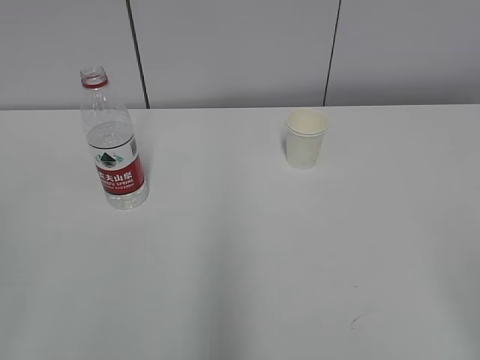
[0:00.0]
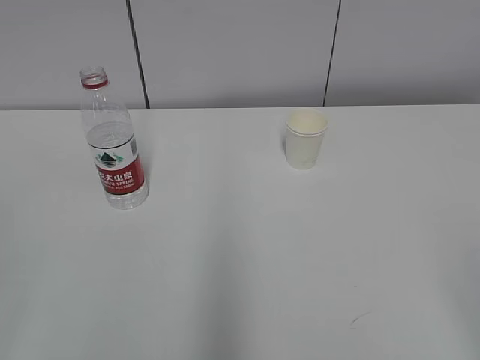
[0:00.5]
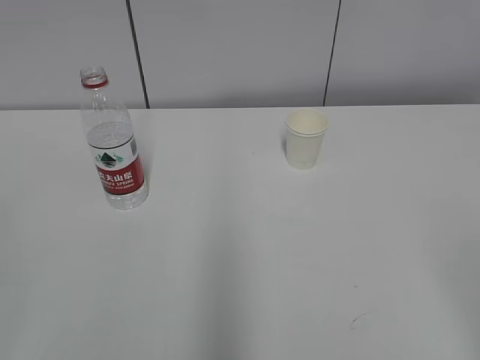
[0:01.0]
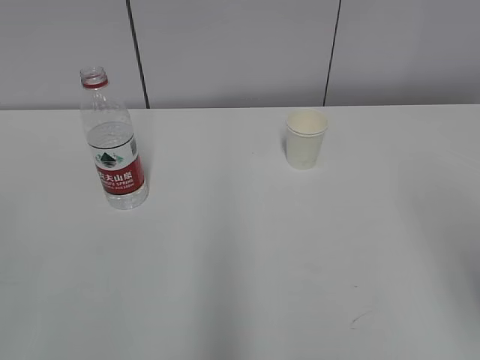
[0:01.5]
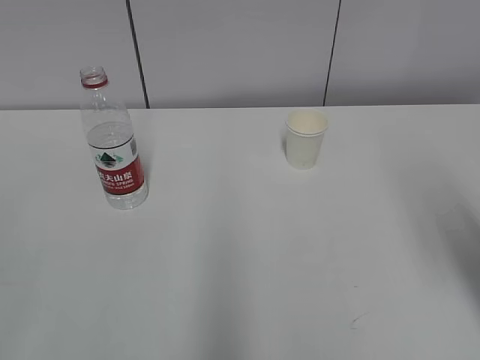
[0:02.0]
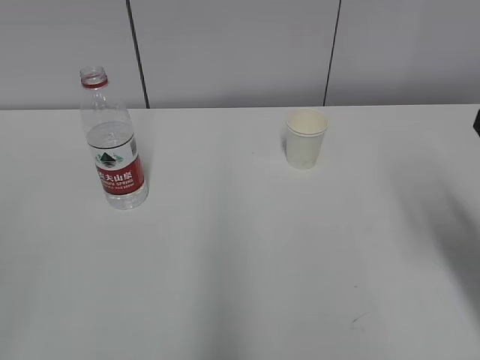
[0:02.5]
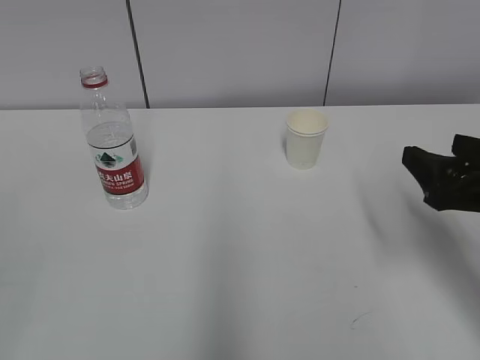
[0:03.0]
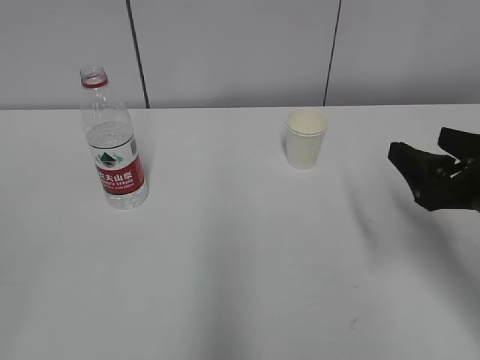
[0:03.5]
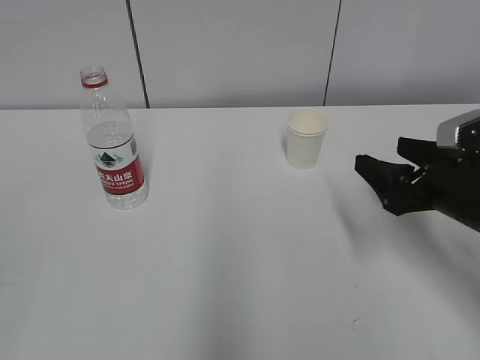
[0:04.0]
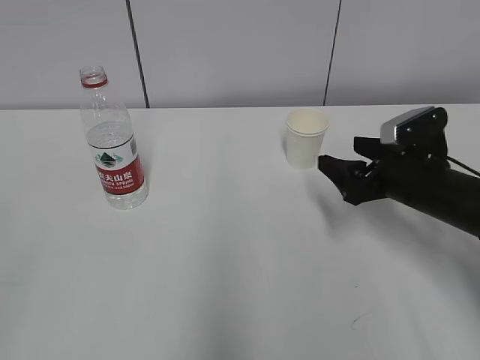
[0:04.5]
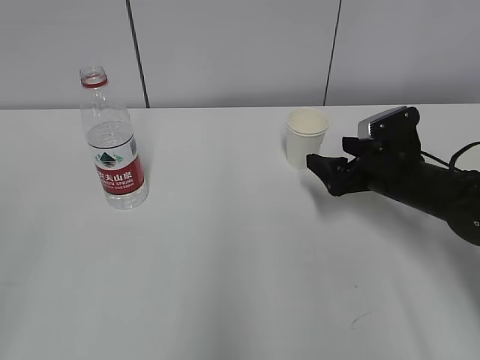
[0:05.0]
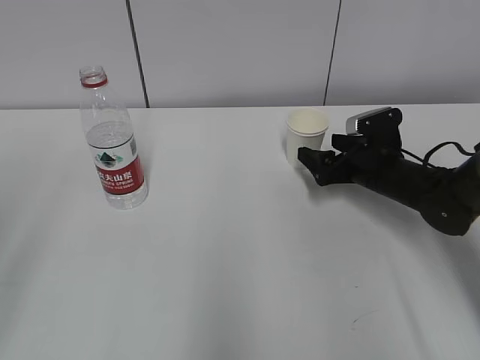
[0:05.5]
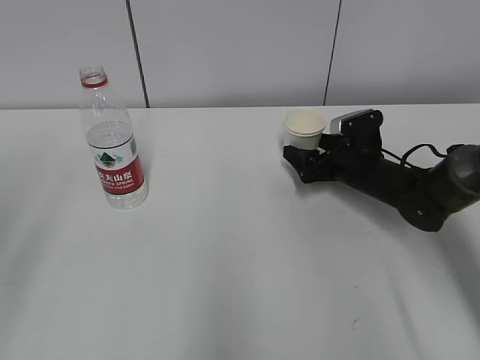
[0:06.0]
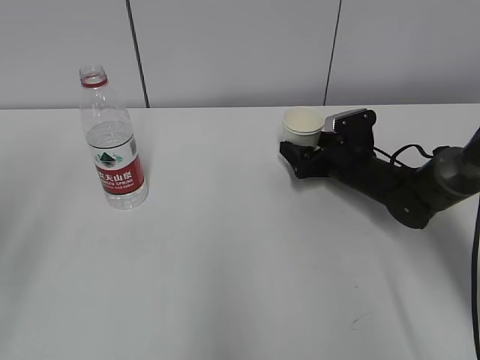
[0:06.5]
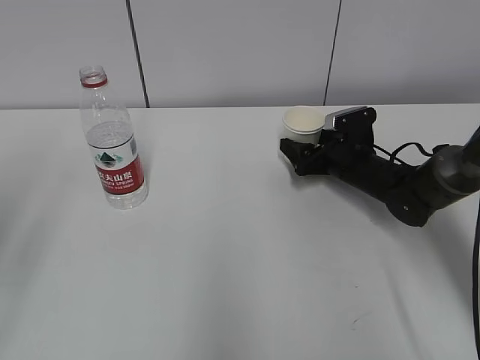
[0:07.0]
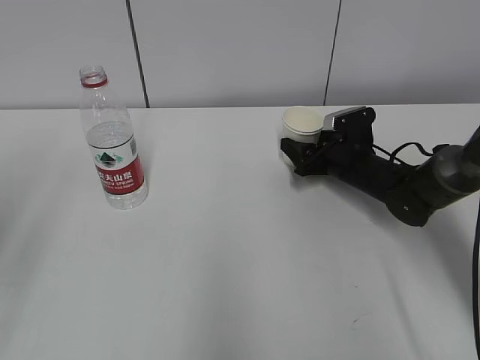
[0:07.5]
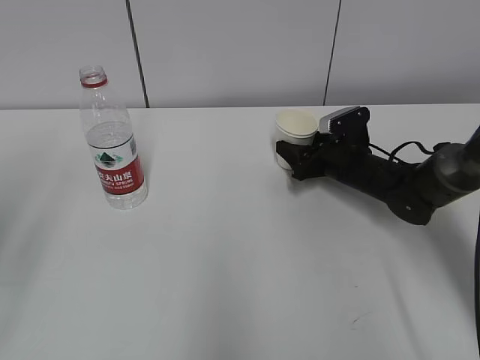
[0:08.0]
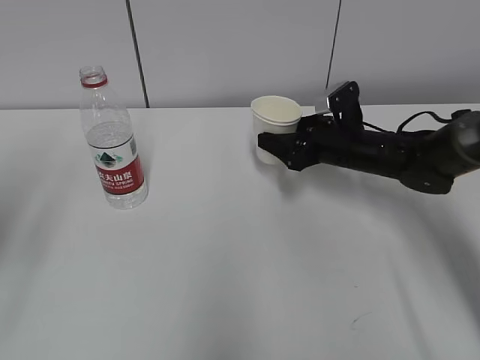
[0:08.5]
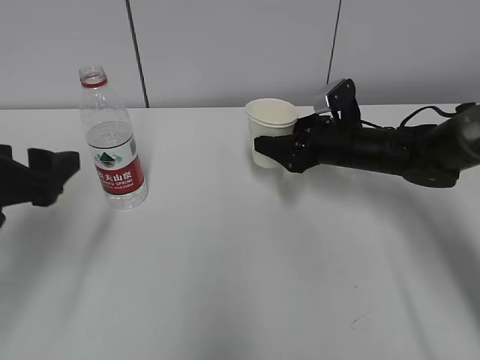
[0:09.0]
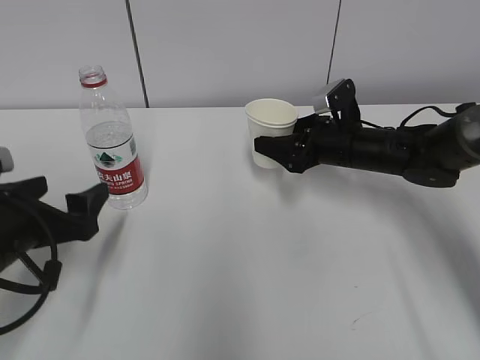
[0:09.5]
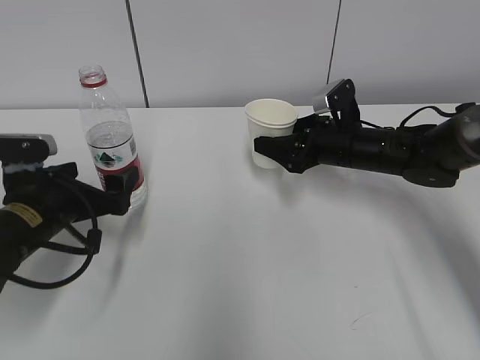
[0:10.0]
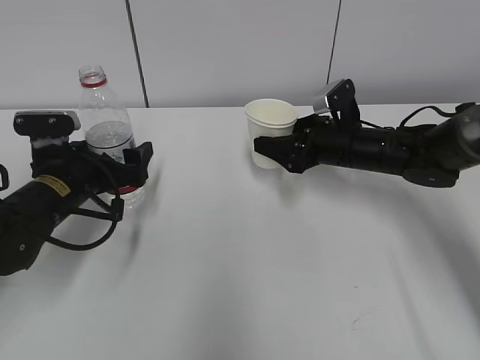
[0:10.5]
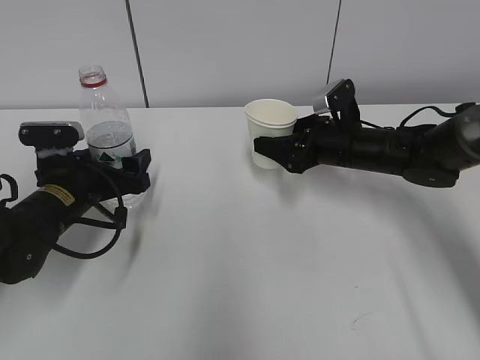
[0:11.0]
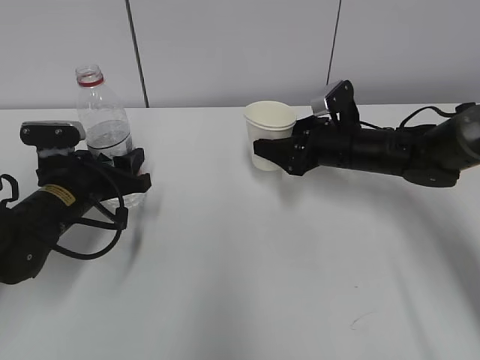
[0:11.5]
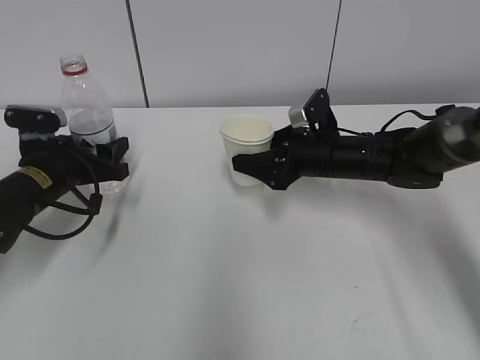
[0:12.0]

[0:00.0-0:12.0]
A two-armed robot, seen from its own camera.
Step, 0:00.0 to 0:06.0: Grab the paper cup with the right hand.
Step, 0:06.5 to 0:09.5: Grab the water bottle with the left hand.
0:02.0 to 0:04.0: The right gripper moves downward and forward, approximately 20 cm.
0:04.0 to 0:06.0: The right gripper heads forward and downward, covering approximately 20 cm. The left gripper shifts about 15 cm forward, and opens its fingers.
0:06.0 to 0:08.0: The right gripper closes up.
0:08.0 to 0:10.0: The right gripper travels upward by some 5 cm. Meanwhile the left gripper heads downward, forward and to the right, covering about 25 cm.
0:10.0 to 0:12.0: The left gripper shifts some 5 cm forward, and closes its fingers.

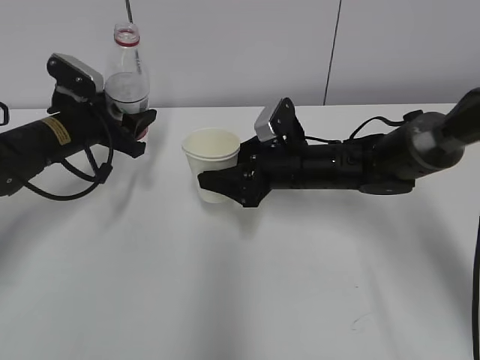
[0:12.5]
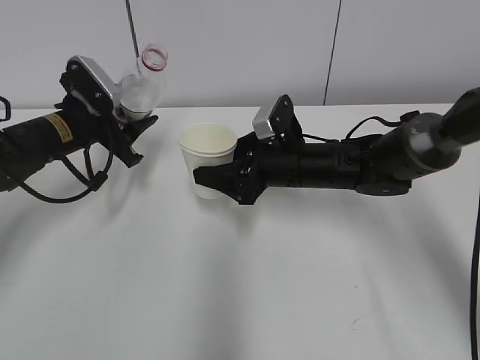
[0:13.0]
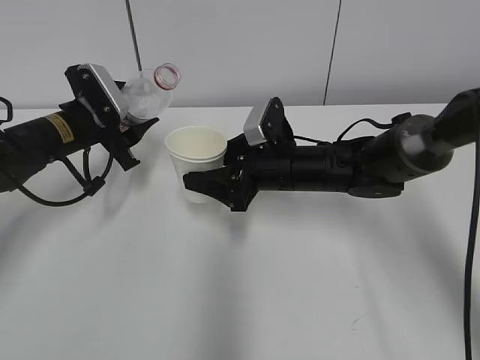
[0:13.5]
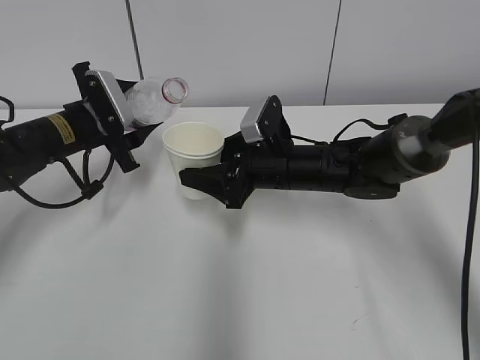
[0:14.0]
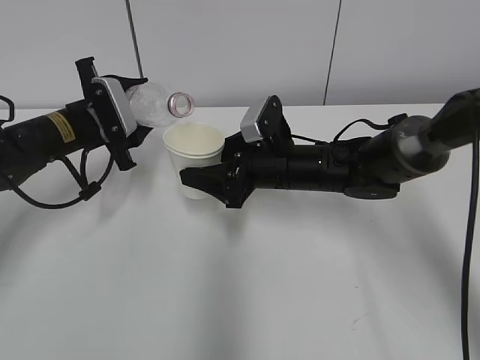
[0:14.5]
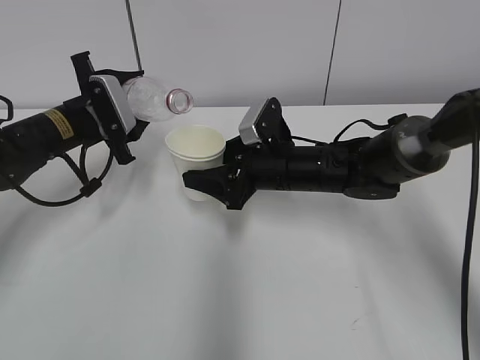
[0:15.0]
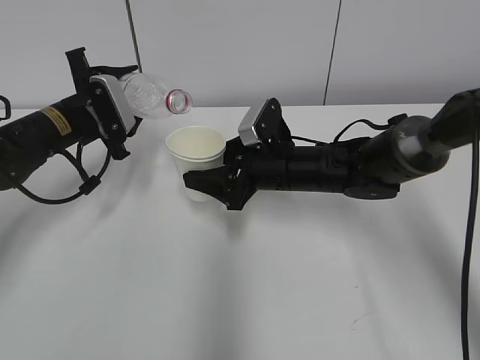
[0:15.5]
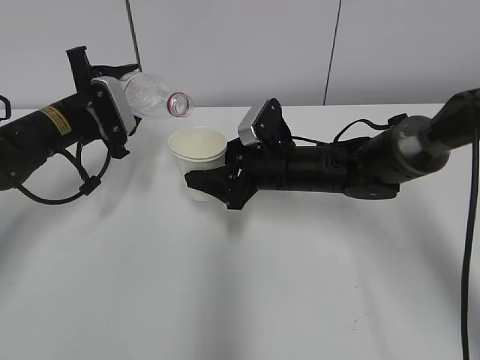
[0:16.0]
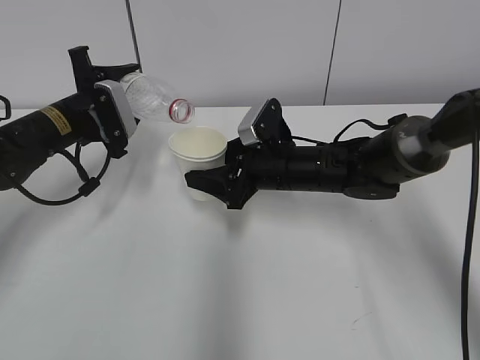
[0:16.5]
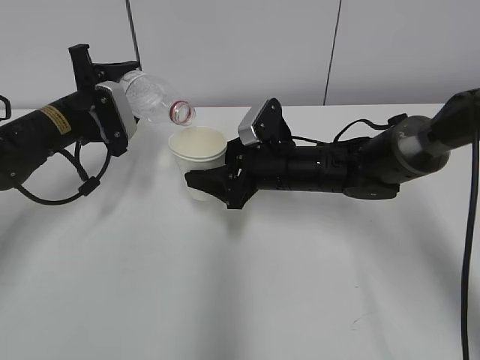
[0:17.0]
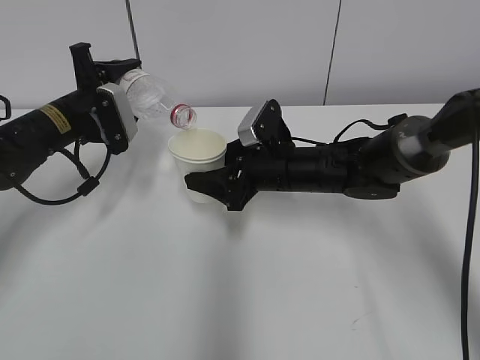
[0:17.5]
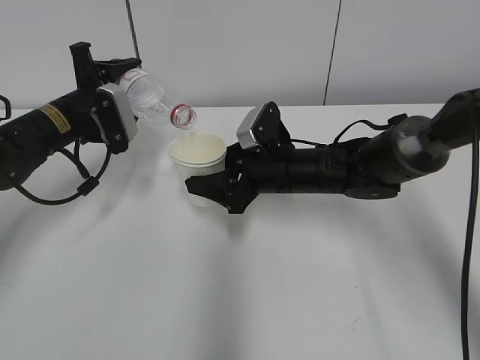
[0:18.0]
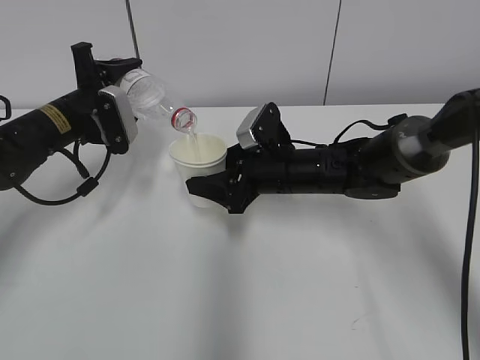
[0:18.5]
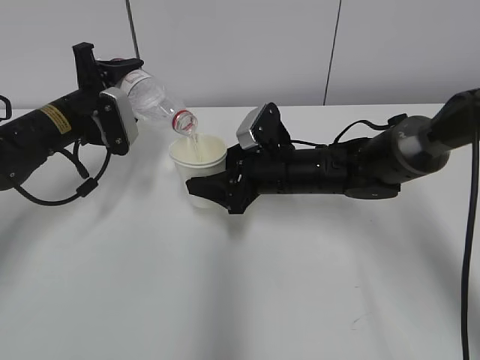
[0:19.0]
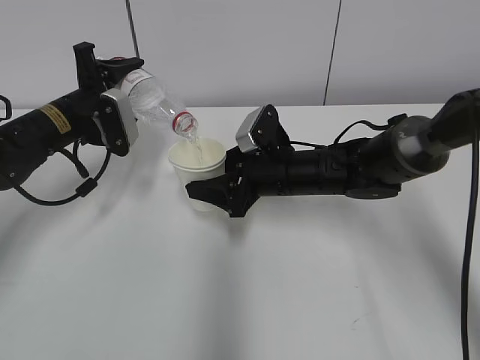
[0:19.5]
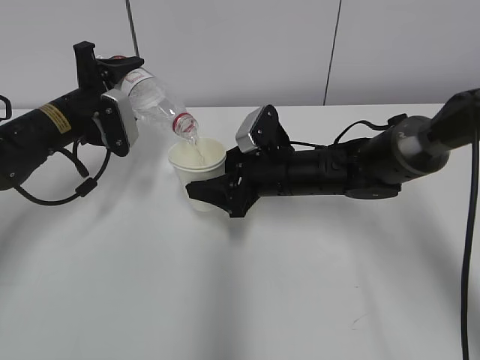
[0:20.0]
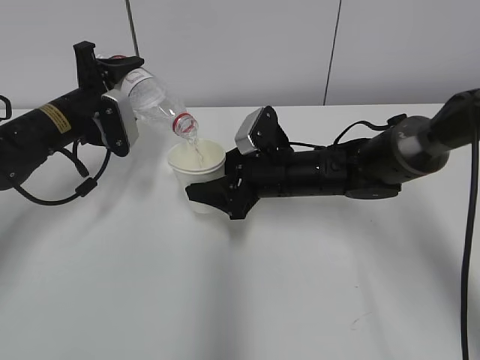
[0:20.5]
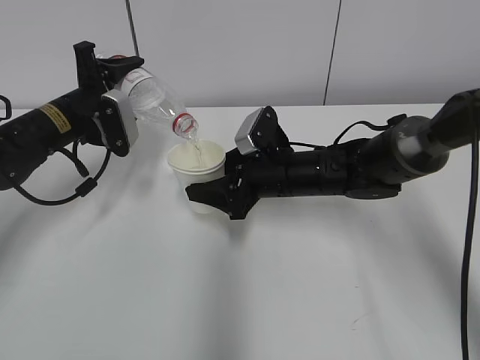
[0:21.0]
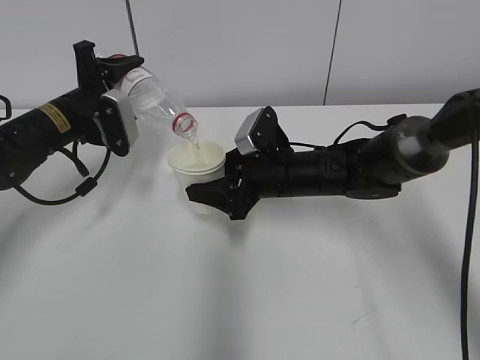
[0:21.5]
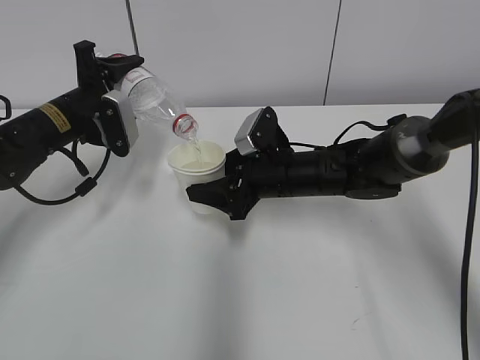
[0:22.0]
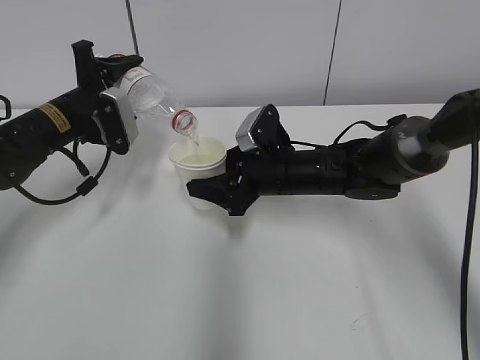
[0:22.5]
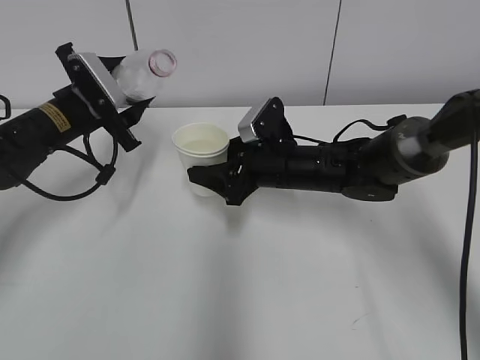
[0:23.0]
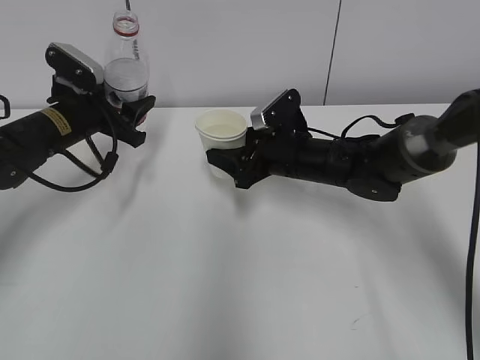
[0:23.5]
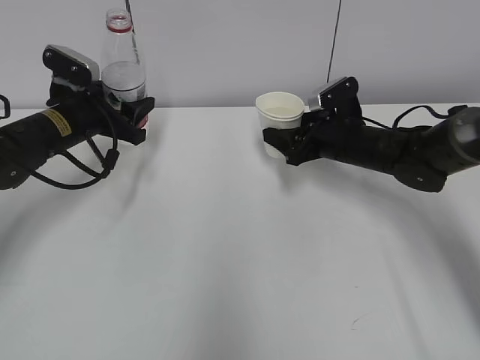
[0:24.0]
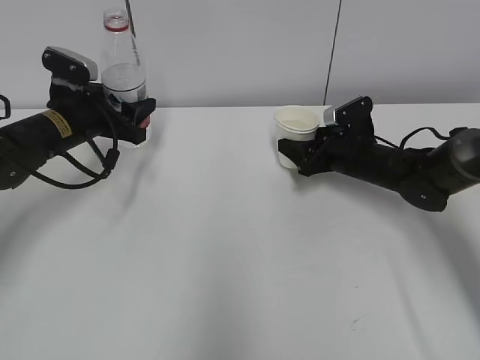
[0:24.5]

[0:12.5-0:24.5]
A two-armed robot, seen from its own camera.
Step, 0:12.5 to 0:15.0: Lift the paper cup with the right hand.
Step, 0:15.5 to 0:18.5: Fill water with the right hand.
Step, 0:15.5 to 0:18.5: Pour water with the left hand.
Step, 0:19.0 to 0:20.0: Collect water with the left hand.
Step, 0:21.5 to 0:23.5: Place the water bottle with the left hand.
0:14.5 to 0:16.5: The grippers move only a little.
0:16.5 to 0:18.5: The grippers make only small movements.
0:18.5 to 0:20.5: Neither gripper changes place.
0:20.5 to 0:22.5: Both grippers stay about where they are.
0:22.5 to 0:24.5: The right gripper shifts some 15 cm to the right and forward.

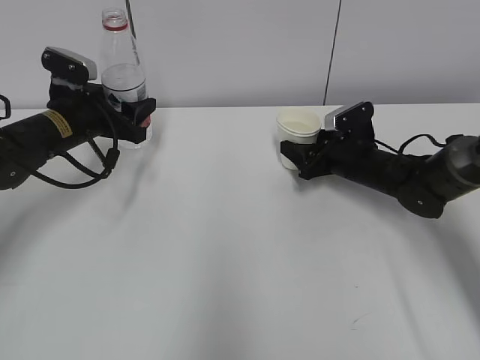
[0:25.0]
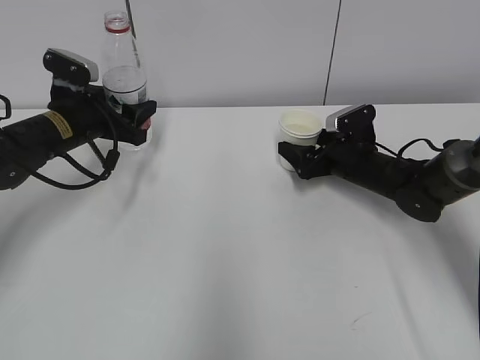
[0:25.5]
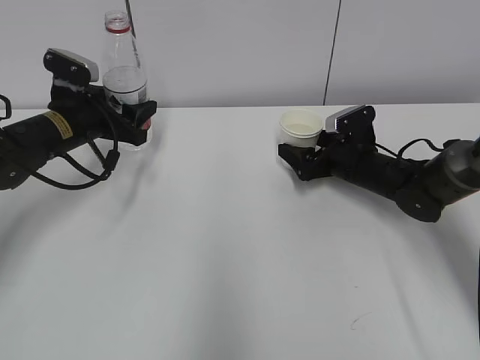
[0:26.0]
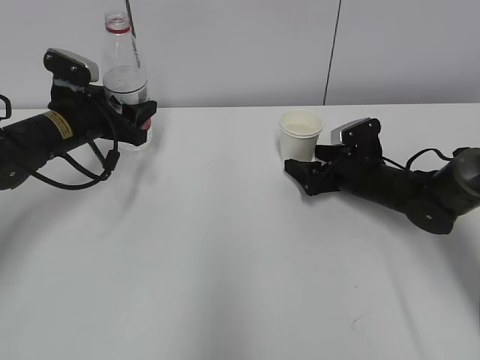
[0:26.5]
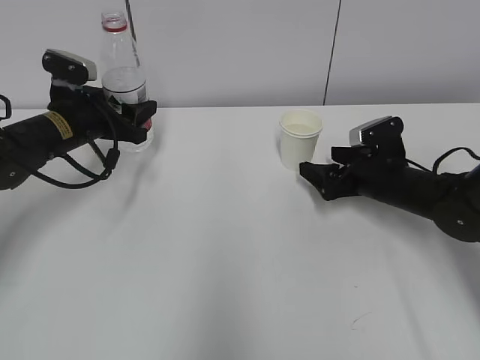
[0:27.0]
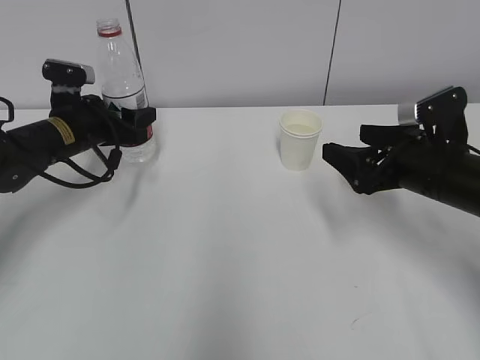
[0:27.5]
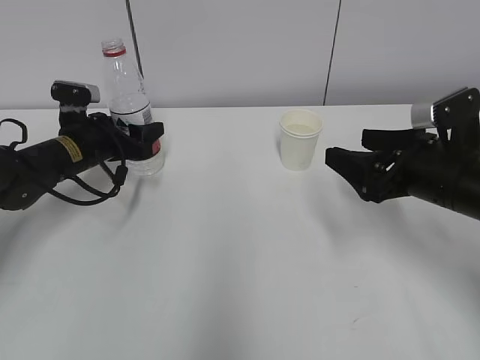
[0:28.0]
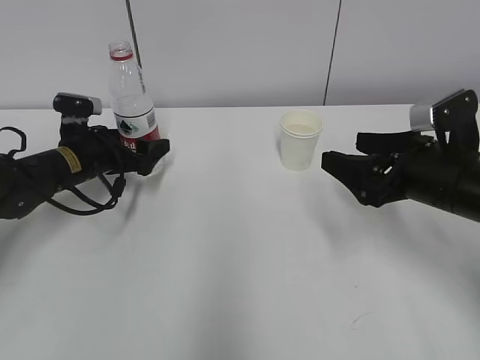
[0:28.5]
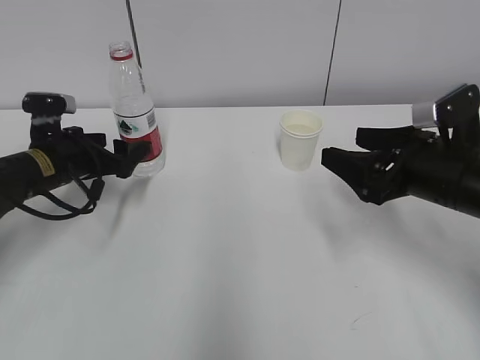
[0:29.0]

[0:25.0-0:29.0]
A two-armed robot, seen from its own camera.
0:25.0 to 0:27.0: The right gripper shifts some 5 cm backward, and opens.
0:27.0 to 0:29.0: The left gripper ends up approximately 5 cm from where it was, and opens its fingers; the right gripper is displaced backward and upward by about 15 cm, and closes its fingers.
